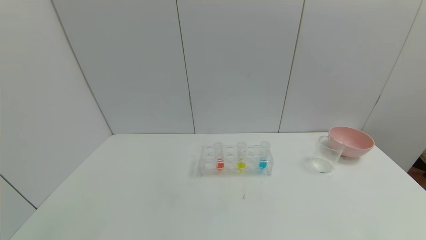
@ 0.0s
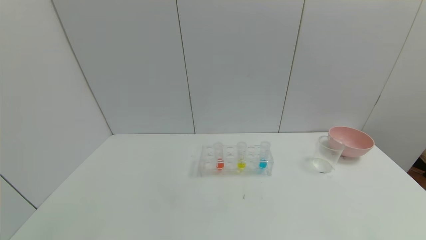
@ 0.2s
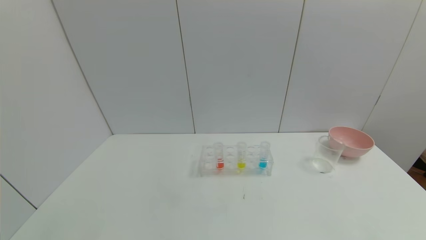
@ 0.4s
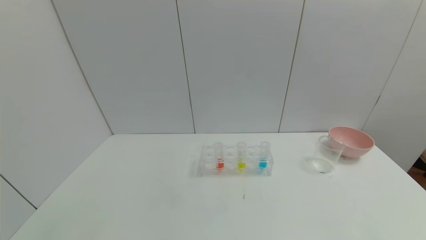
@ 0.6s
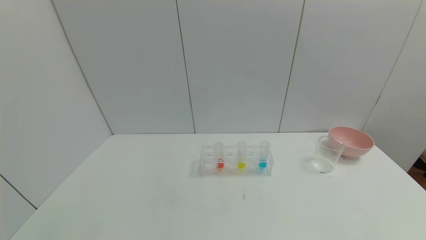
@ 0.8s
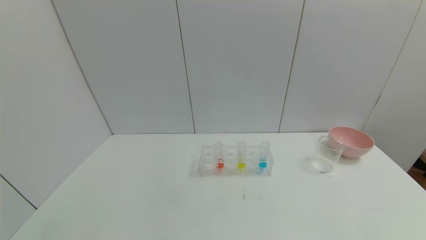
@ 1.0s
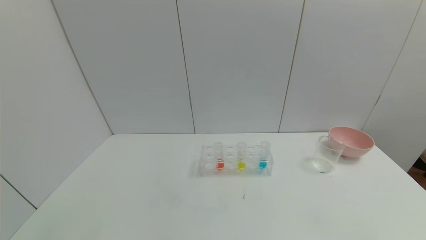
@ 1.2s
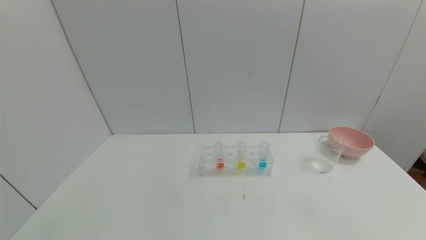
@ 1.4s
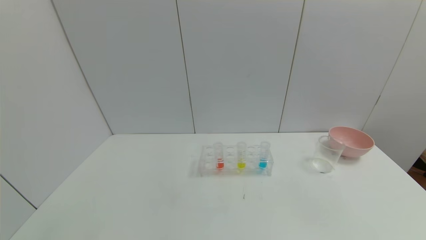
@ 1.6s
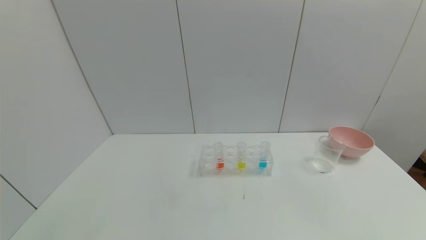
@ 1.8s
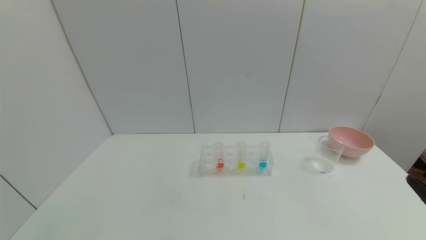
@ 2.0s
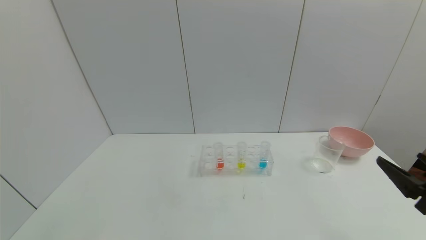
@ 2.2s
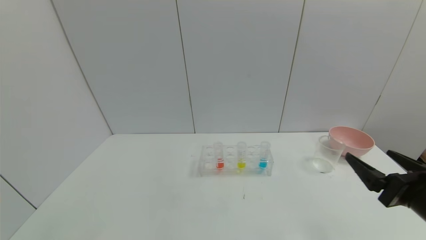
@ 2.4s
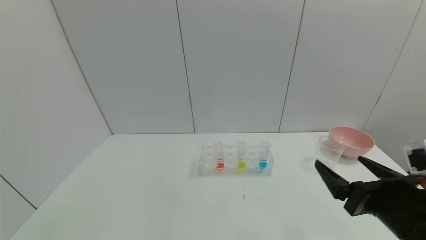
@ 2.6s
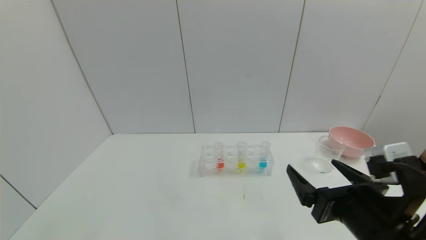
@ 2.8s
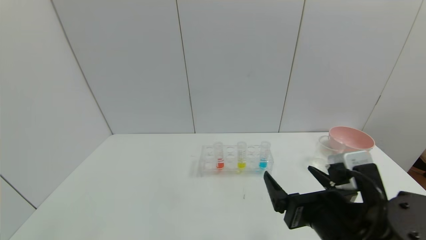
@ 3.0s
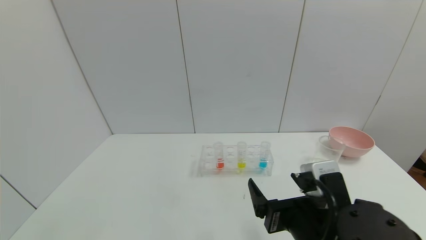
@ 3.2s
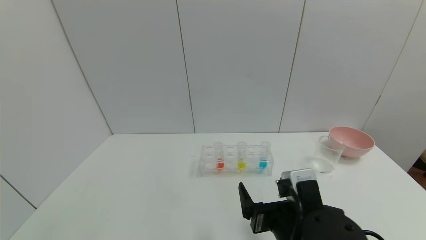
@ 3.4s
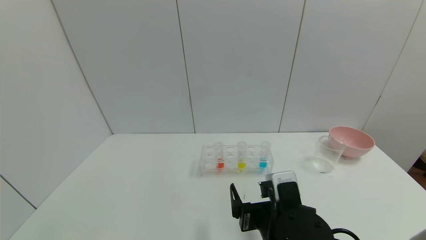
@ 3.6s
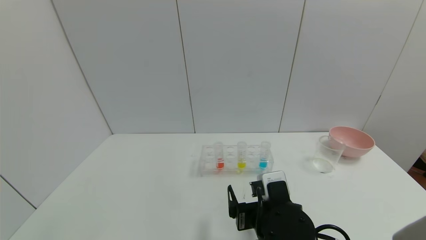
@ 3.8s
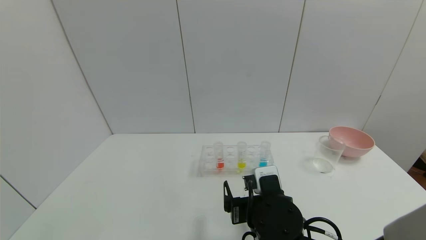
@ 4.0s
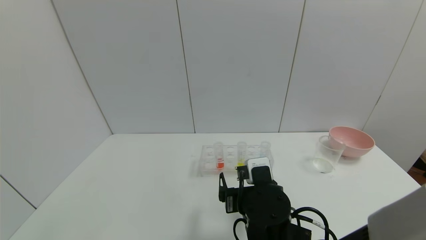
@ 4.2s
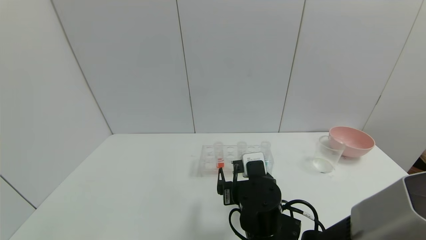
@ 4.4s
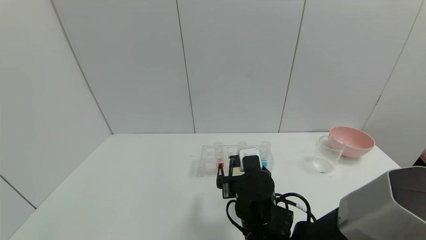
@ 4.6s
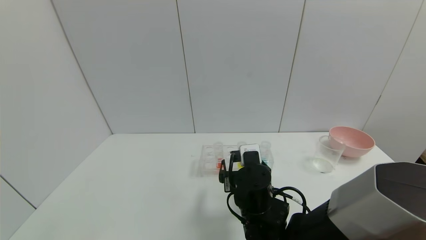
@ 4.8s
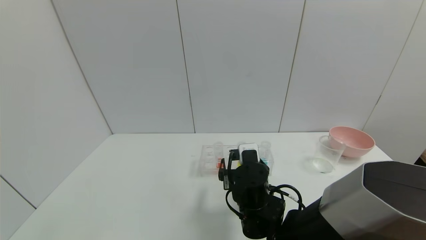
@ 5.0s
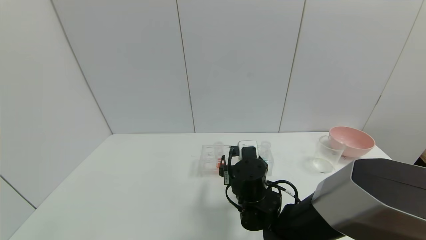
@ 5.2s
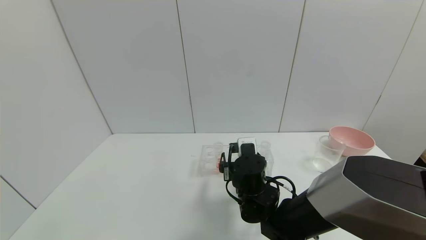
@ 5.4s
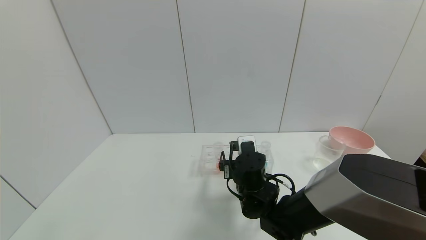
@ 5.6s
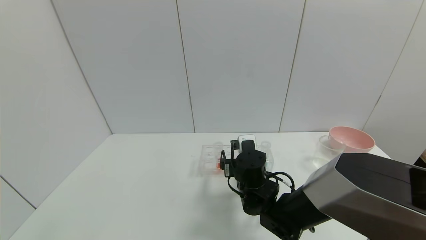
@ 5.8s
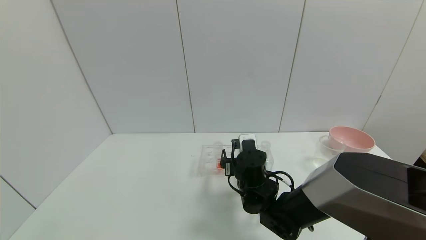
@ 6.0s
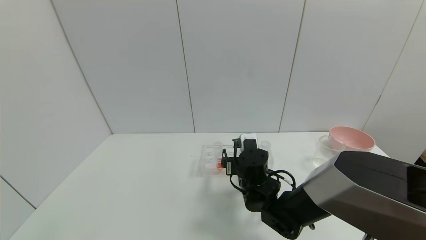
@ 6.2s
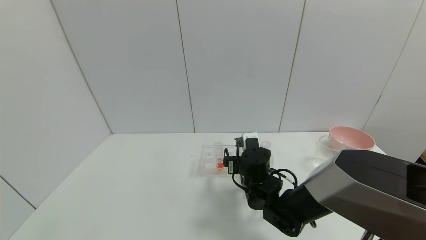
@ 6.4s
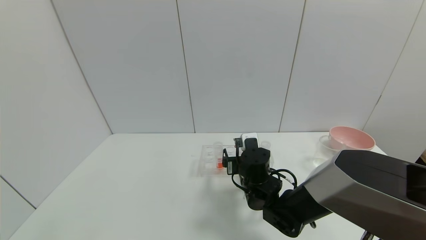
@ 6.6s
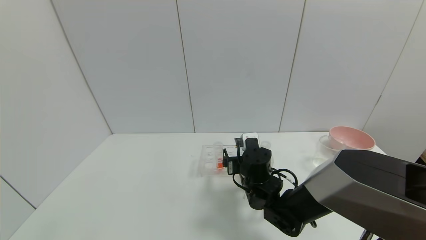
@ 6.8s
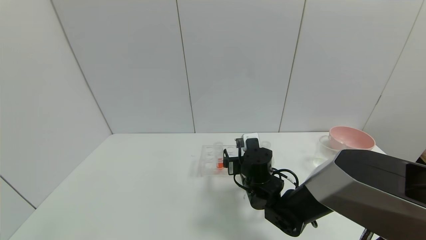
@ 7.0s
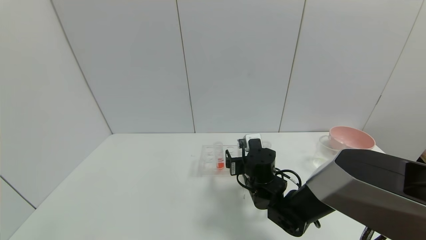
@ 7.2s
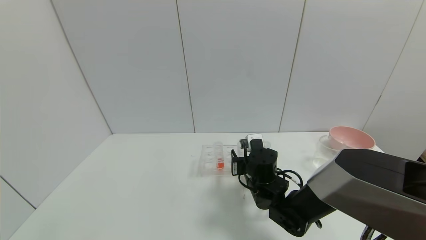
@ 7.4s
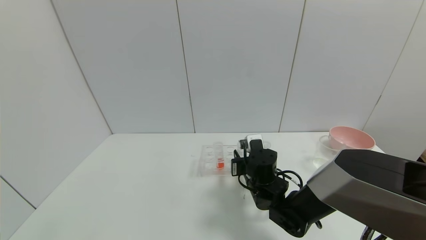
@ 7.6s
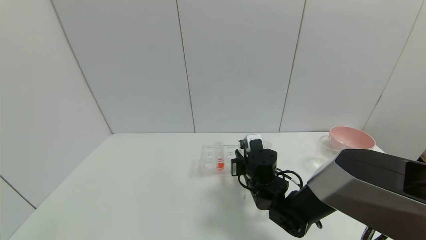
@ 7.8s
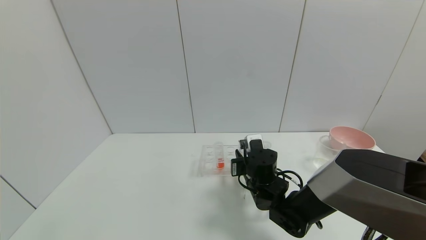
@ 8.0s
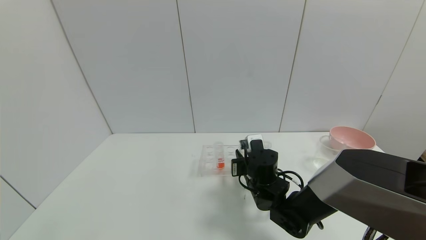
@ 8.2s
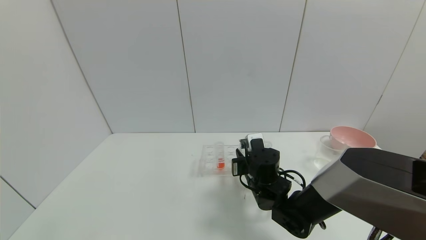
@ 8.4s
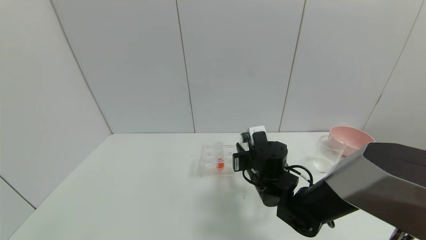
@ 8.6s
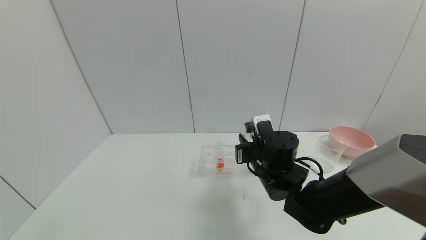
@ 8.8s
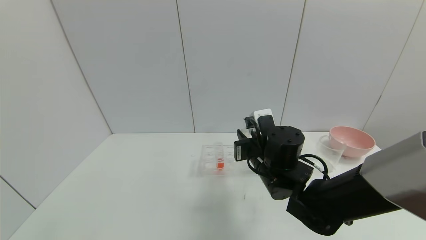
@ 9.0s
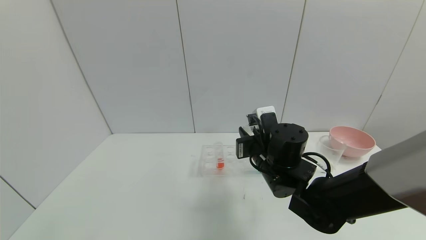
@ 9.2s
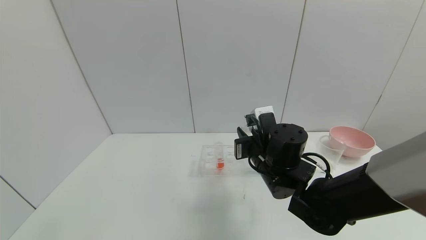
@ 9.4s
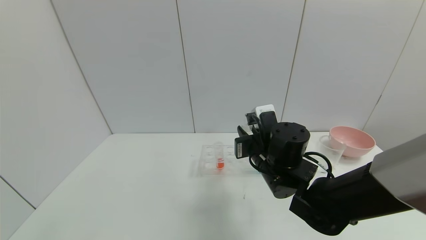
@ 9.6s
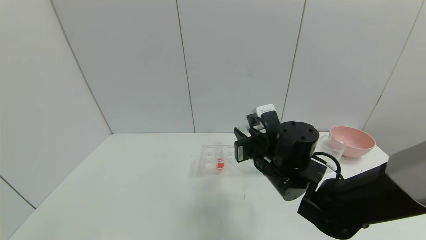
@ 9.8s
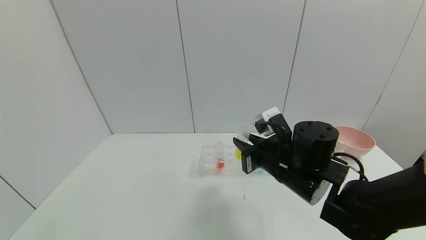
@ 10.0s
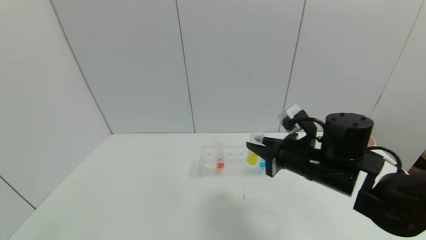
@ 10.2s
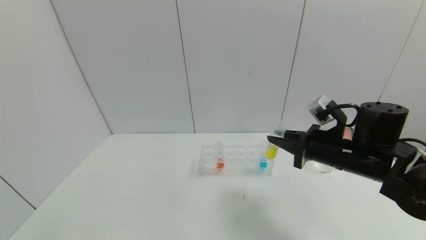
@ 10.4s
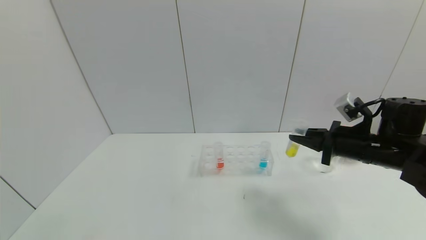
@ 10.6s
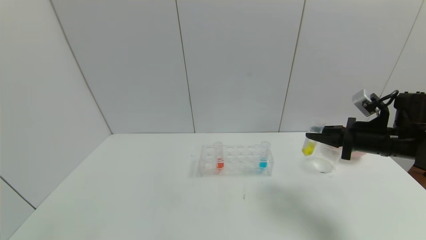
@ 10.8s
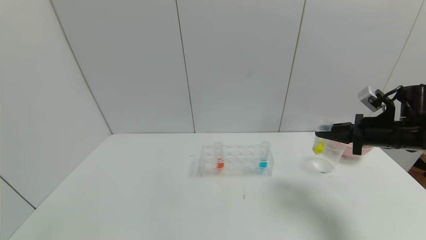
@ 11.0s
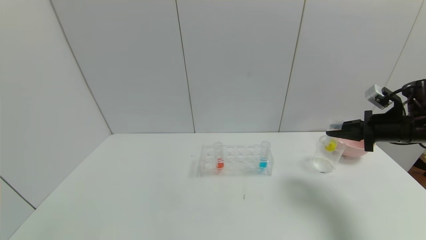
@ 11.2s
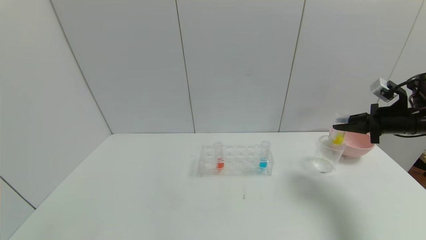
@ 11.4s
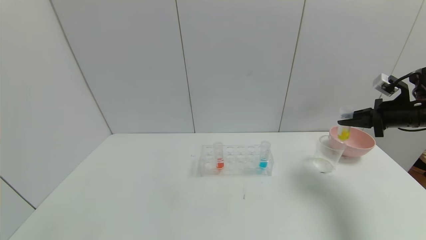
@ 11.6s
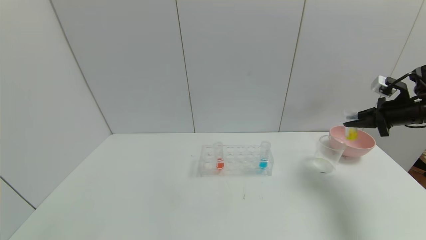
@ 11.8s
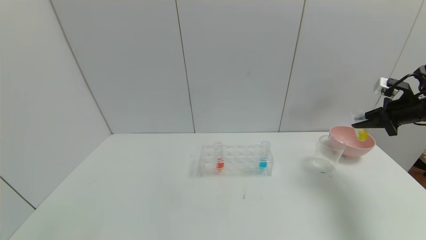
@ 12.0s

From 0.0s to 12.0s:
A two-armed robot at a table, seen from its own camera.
Task of the whole recording: pick up the test tube with yellow pigment and the test tube with blue pigment by grippers and pour them into the beaker.
Step, from 0.0s to 10.6s: Pick up the test tube containing the yellow reagent with right gripper.
From 1.6s to 3.0s: The right gripper shifts about 25 cm to the left and forward.
From 3.0s to 4.4s: The right gripper travels to the left, forward and downward by roughly 15 cm.
From 4.4s to 6.0s: The right gripper moves forward, some 10 cm.
From 6.0s to 7.6s: The right gripper closes up.
From 7.6s to 9.0s: The right gripper goes approximately 10 cm upward.
From 9.0s to 10.4s: The right gripper heads to the right, covering approximately 15 cm.
From 10.4s to 12.0s: The right gripper travels to the right by roughly 25 cm.

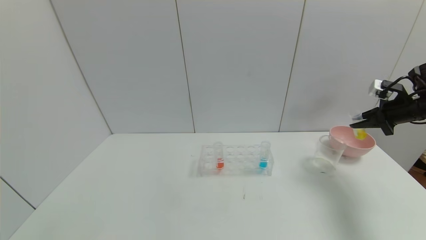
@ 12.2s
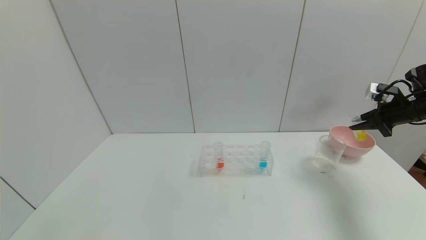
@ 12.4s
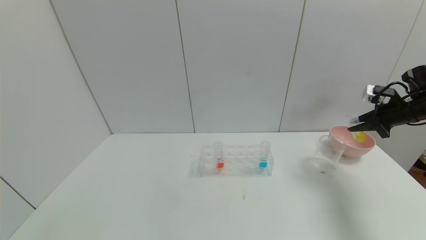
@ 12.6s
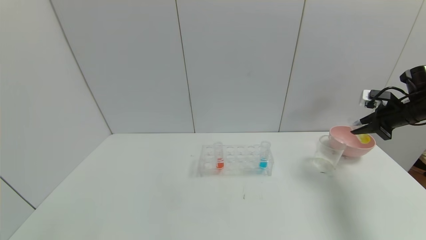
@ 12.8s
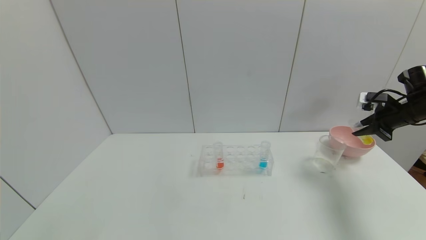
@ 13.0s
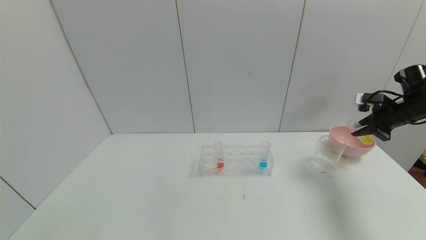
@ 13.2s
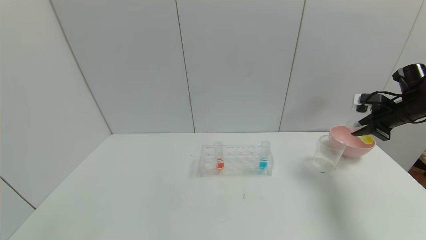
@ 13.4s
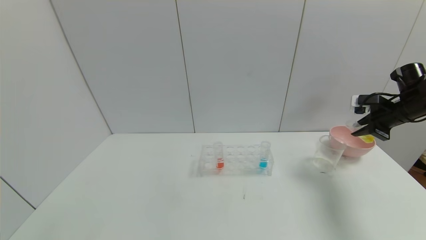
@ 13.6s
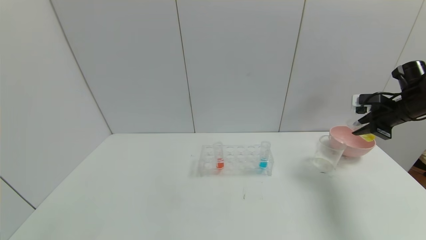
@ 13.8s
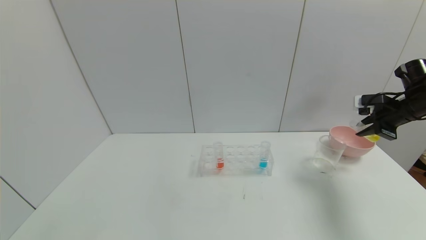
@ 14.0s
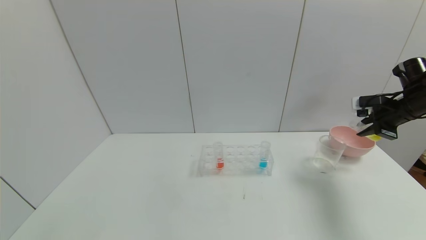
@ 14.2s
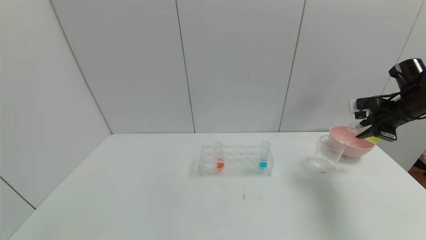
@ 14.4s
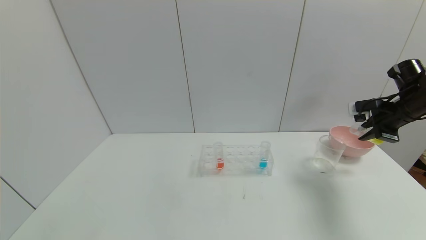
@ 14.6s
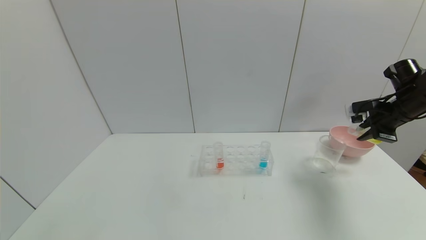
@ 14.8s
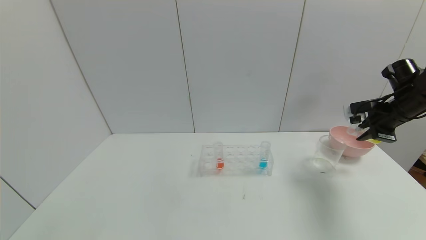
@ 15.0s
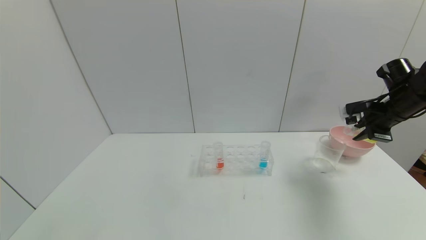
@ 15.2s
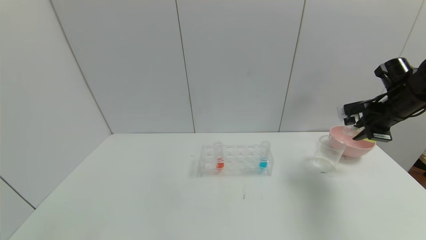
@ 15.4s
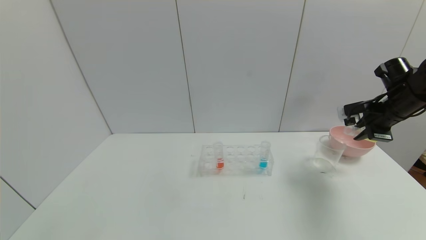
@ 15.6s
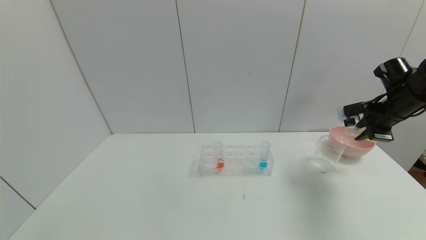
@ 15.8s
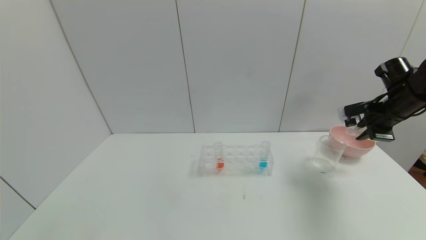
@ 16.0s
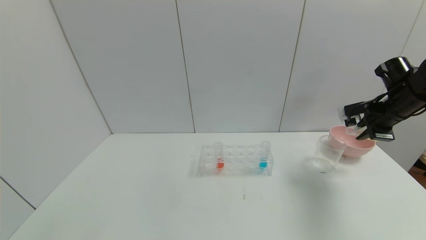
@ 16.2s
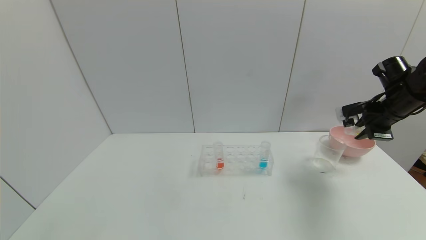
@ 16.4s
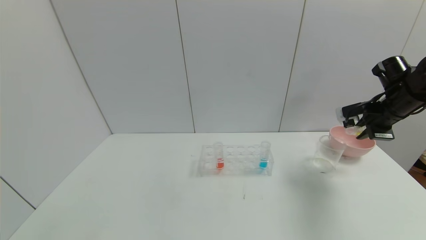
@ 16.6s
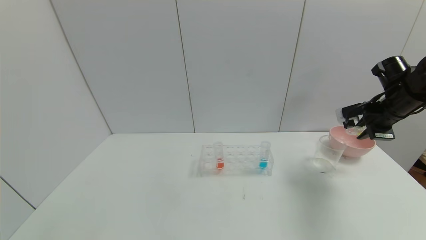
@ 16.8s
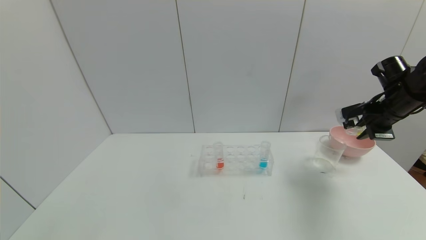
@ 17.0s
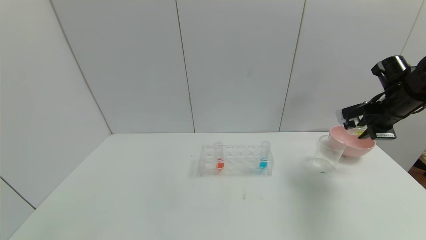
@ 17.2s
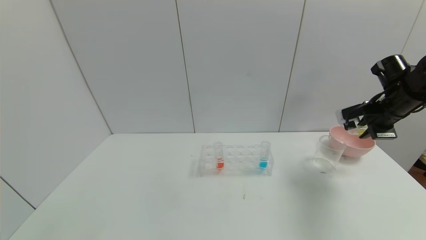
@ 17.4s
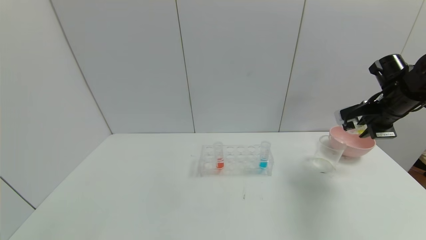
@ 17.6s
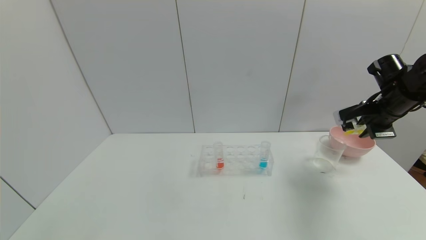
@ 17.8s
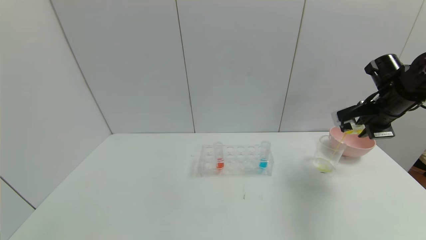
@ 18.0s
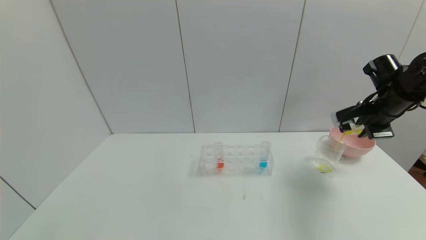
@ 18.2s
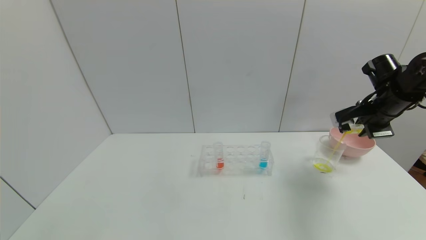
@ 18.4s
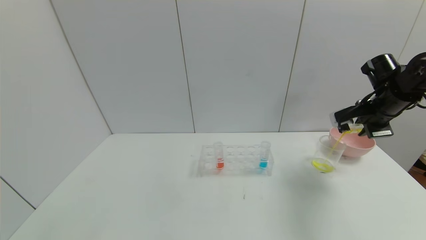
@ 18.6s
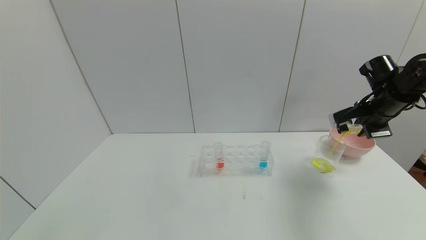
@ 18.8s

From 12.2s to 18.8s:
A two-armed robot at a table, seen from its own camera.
Task of the whole recording: pick up the test tube with yellow pigment and the test tube with blue pigment by grippers and pour them into the beaker.
From 13.8s to 15.4s: There are only small adjustments of the grippers.
From 15.4s to 18.8s: There are only small adjustments of the grippers.
